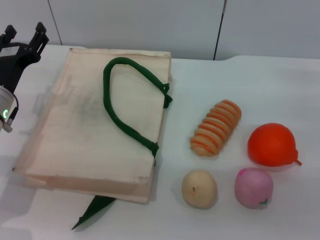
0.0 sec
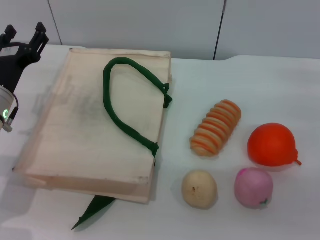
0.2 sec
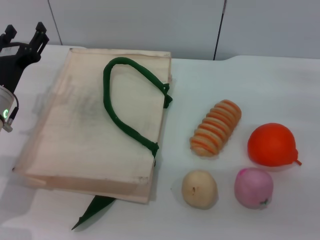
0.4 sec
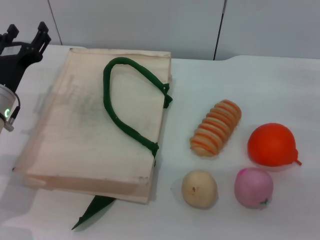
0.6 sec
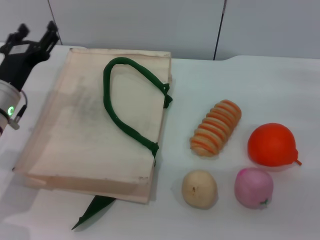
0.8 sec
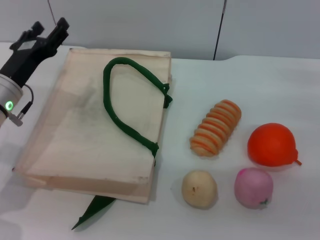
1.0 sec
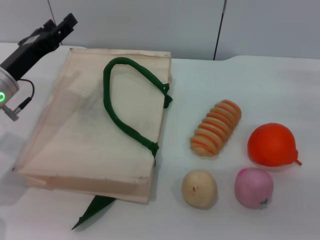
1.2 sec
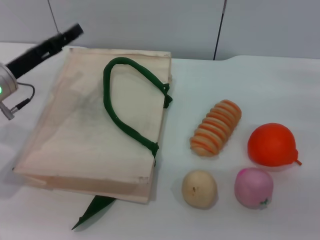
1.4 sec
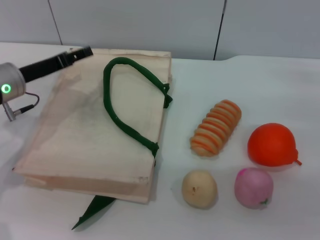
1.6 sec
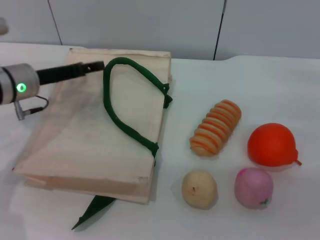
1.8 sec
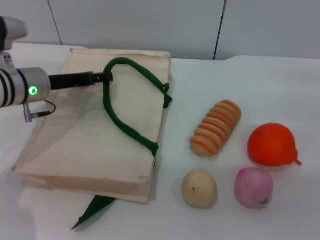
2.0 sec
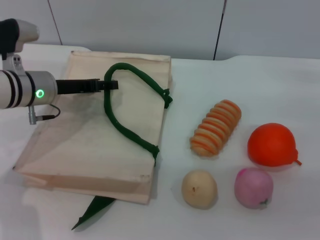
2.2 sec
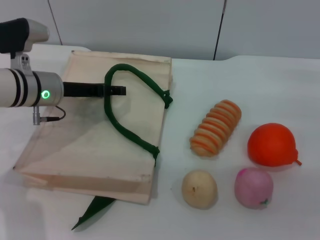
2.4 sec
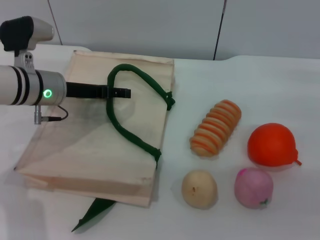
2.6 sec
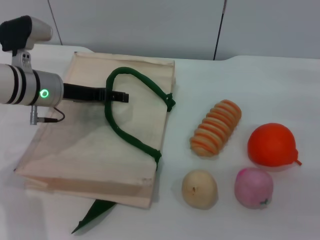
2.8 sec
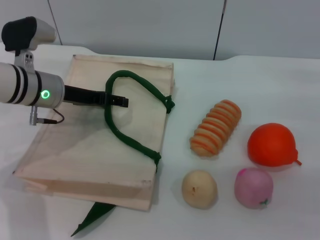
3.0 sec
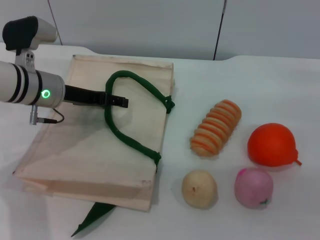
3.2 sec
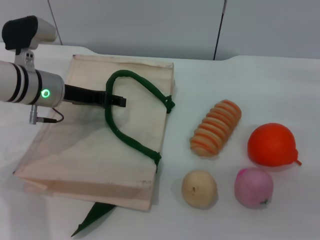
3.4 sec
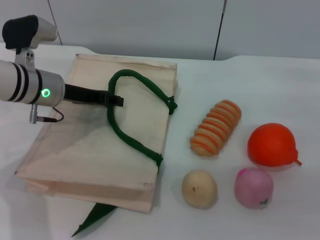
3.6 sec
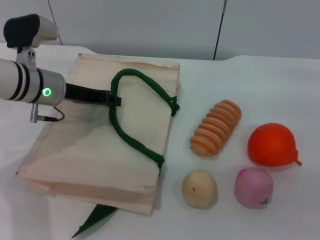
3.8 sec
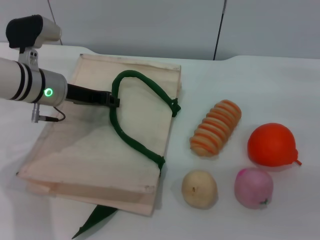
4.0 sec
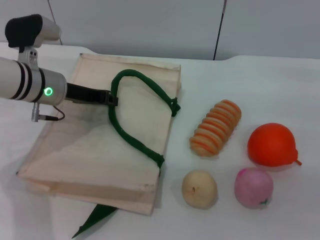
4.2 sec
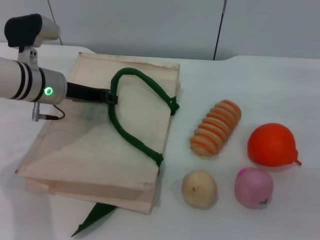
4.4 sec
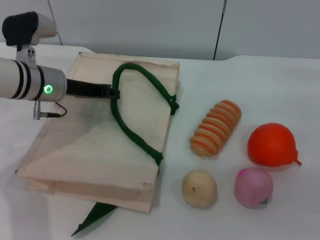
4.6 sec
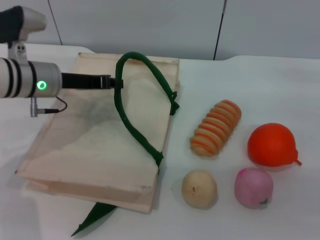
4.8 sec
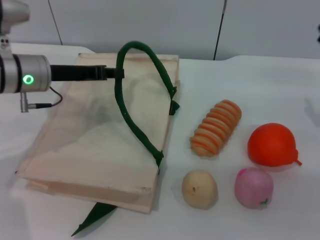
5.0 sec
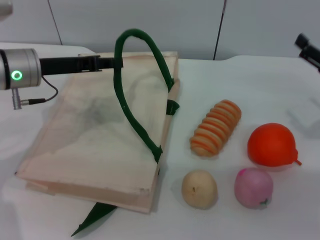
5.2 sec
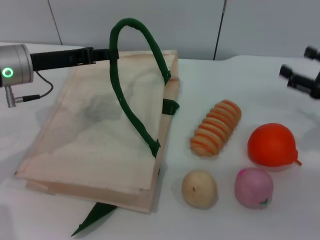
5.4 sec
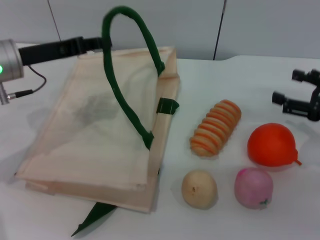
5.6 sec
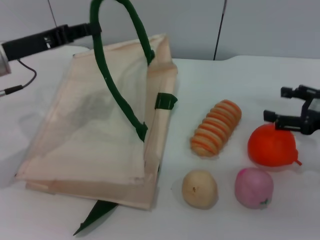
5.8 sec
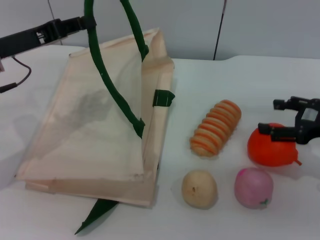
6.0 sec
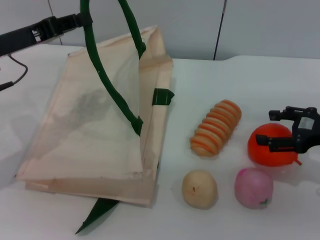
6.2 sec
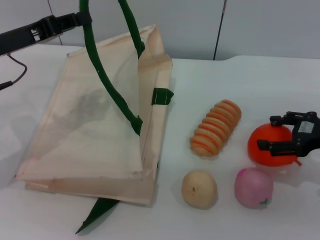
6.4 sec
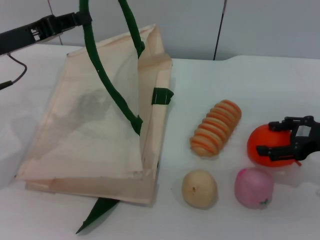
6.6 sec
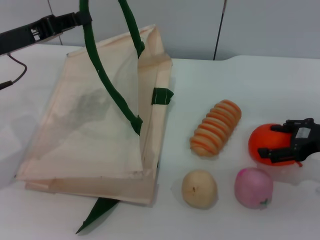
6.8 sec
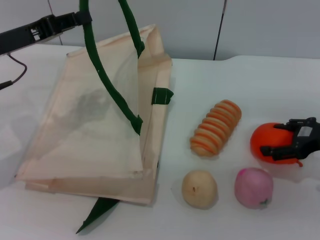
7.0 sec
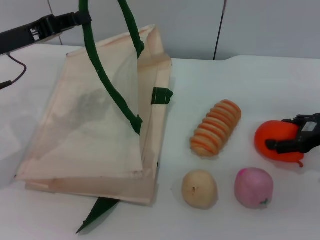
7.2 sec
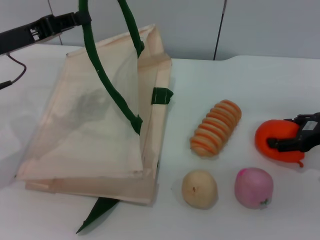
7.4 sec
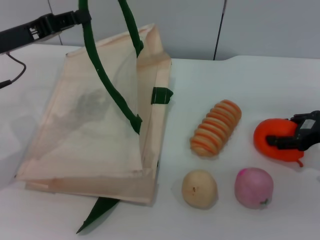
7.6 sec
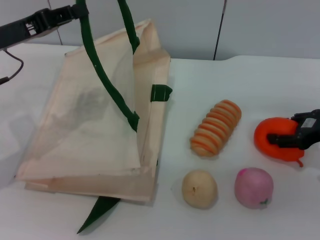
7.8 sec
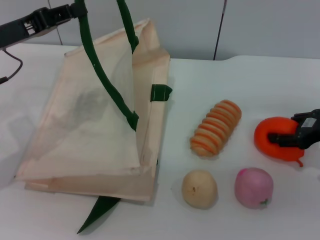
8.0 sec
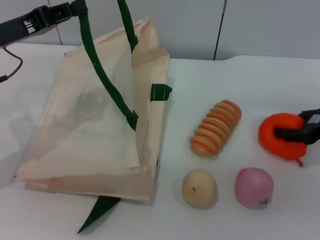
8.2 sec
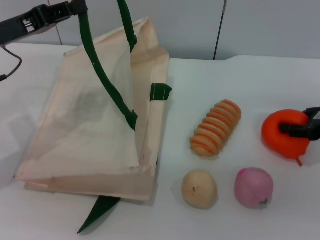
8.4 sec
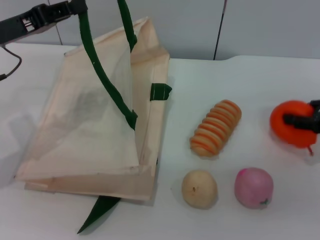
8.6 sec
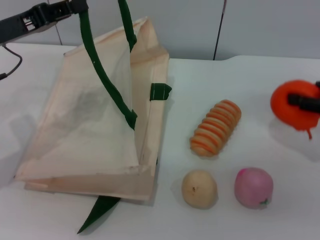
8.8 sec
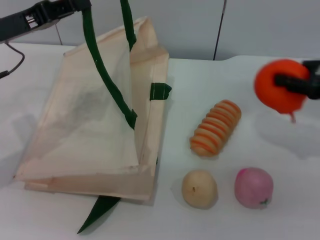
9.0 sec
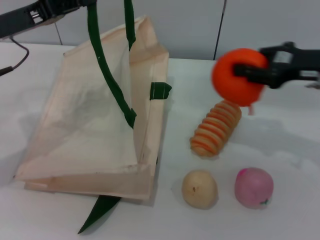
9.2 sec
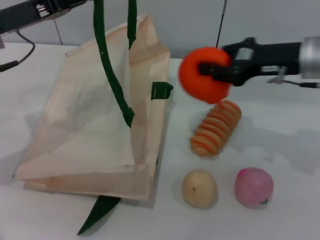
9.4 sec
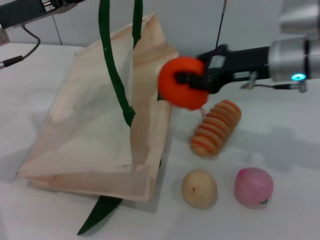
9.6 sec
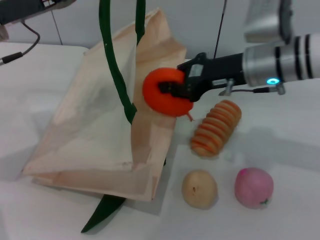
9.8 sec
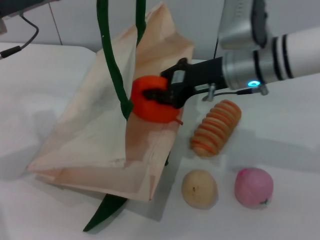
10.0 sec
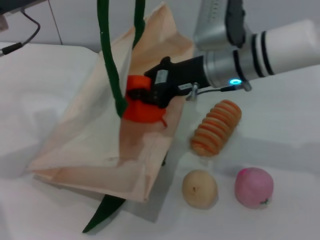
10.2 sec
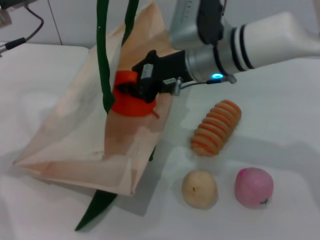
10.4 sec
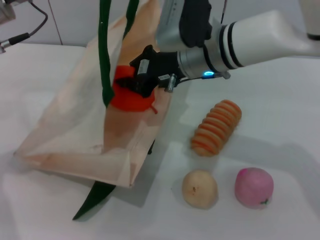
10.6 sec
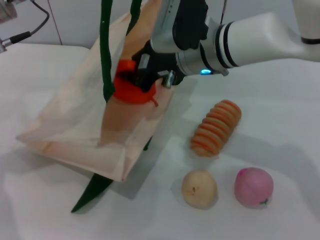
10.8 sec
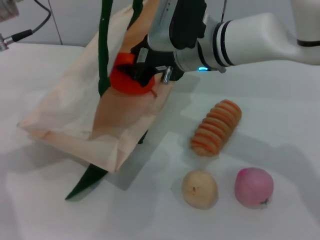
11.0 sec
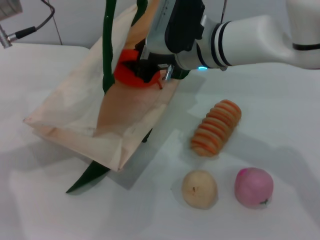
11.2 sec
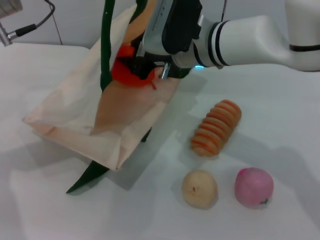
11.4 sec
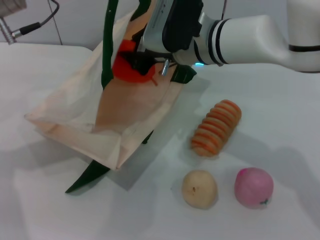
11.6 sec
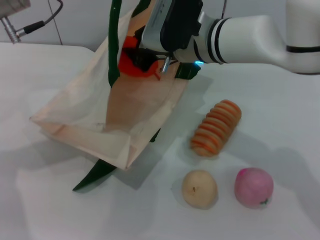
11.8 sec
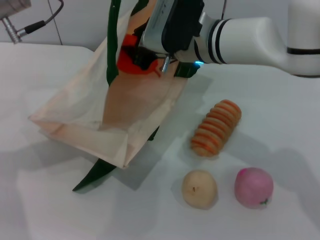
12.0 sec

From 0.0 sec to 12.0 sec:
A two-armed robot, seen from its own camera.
Task of the whole recording: pick up the orange and peach from the table and place it in the white handbag.
Step, from 0.0 sec to 5.2 sec: Lift the woven bag with the left gripper to open it.
Step, from 5.4 sec to 8.8 sec: Pick up the orange with the right gripper.
From 0.0 sec to 1.6 sec: The left gripper shifts by some 5 cm.
From 1.6 sec to 3.0 sec: The left gripper changes place by roughly 5 cm.
From 3.0 sec to 4.4 sec: The left gripper closes up.
From 4.4 sec to 6.0 sec: The left gripper heads to the left and upward, covering about 10 cm.
From 6.0 sec to 7.6 sec: There are only small adjustments of the grippers.
From 7.6 sec to 9.0 sec: The right gripper moves upward, about 5 cm, and closes.
From 9.0 sec to 10.4 sec: The left gripper changes place by approximately 5 cm, while the right gripper heads to the left, covering approximately 25 cm.

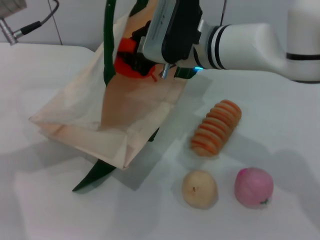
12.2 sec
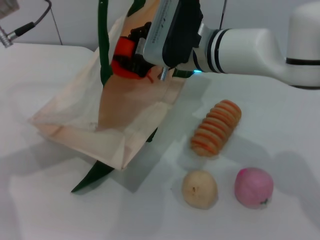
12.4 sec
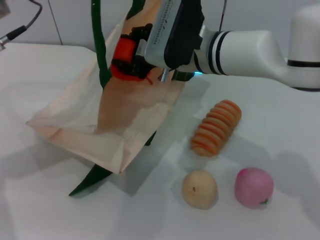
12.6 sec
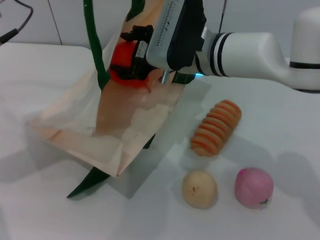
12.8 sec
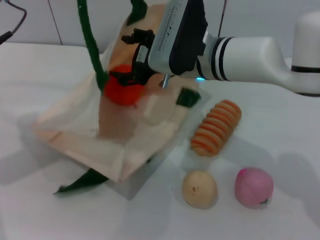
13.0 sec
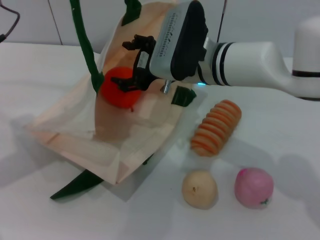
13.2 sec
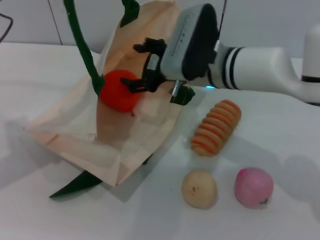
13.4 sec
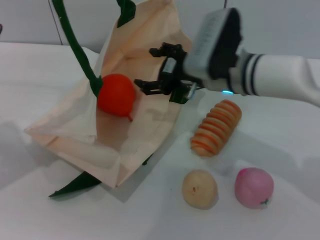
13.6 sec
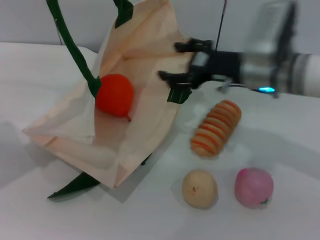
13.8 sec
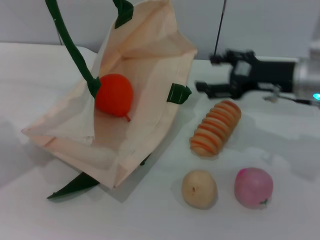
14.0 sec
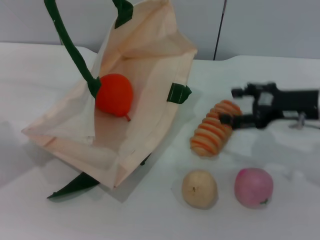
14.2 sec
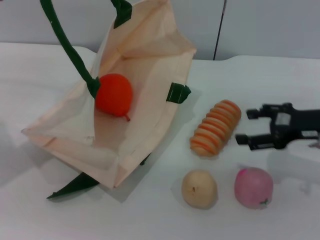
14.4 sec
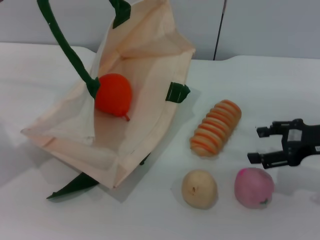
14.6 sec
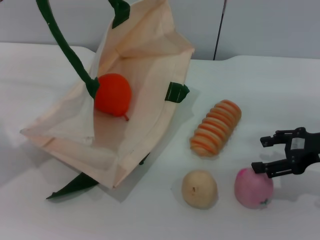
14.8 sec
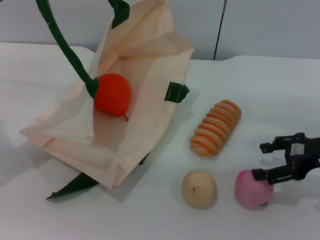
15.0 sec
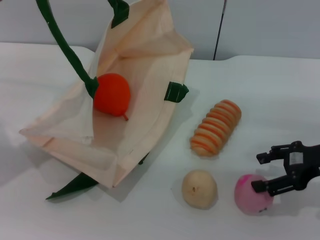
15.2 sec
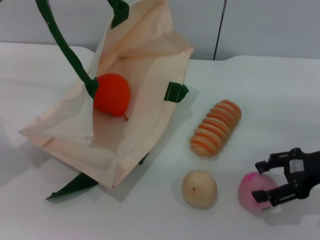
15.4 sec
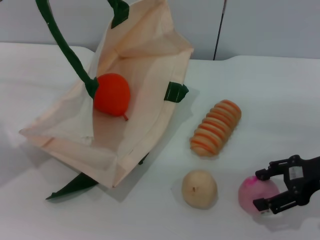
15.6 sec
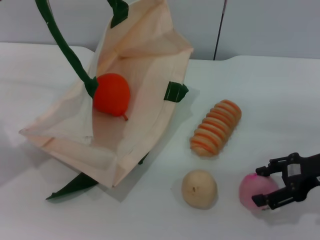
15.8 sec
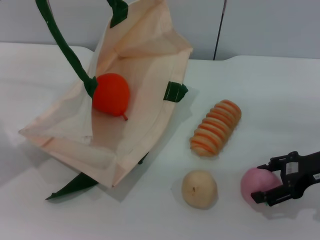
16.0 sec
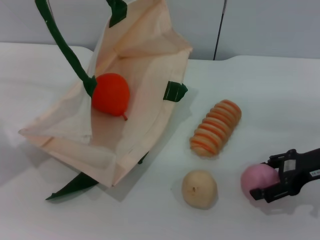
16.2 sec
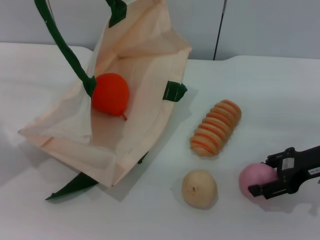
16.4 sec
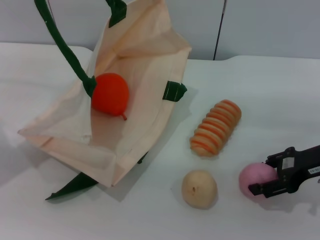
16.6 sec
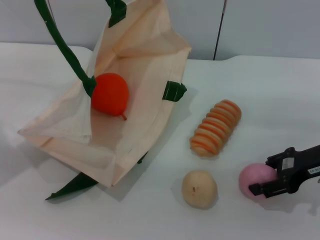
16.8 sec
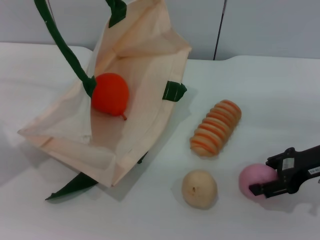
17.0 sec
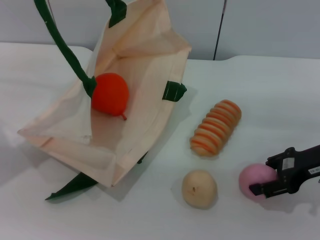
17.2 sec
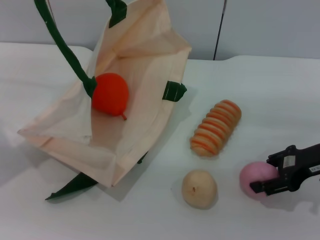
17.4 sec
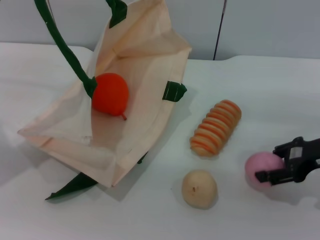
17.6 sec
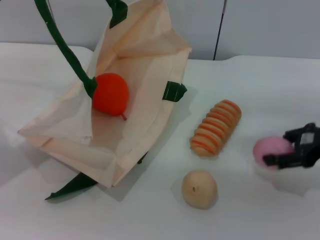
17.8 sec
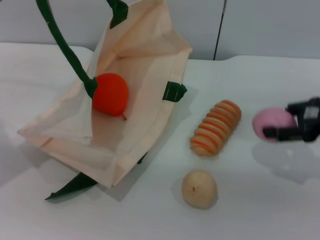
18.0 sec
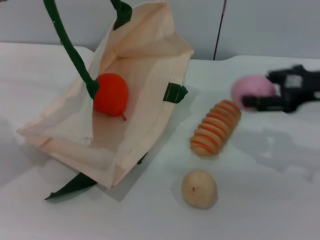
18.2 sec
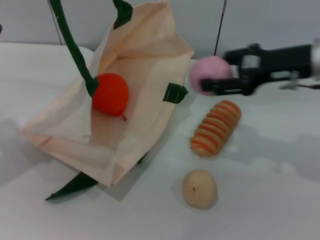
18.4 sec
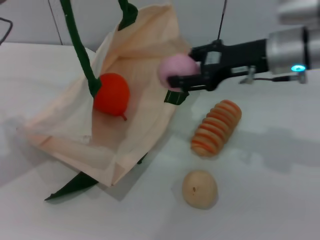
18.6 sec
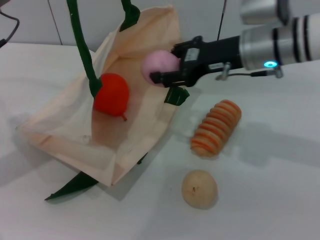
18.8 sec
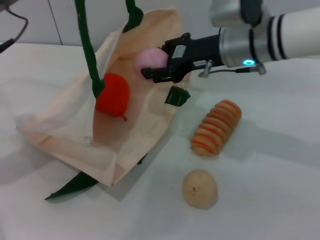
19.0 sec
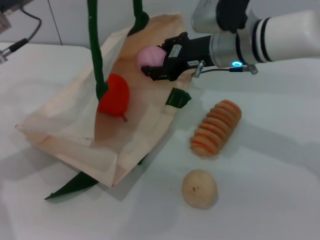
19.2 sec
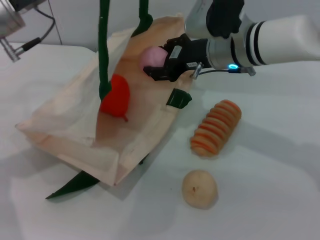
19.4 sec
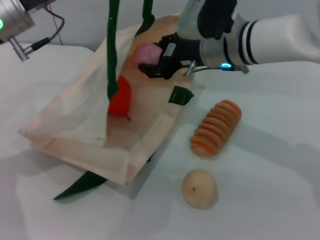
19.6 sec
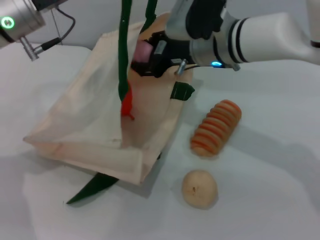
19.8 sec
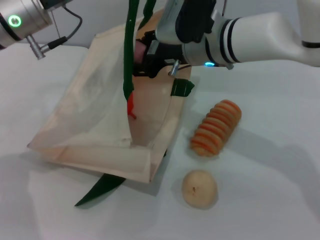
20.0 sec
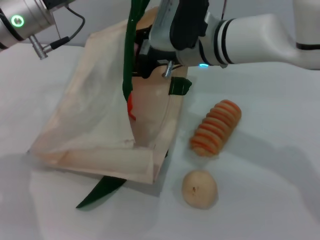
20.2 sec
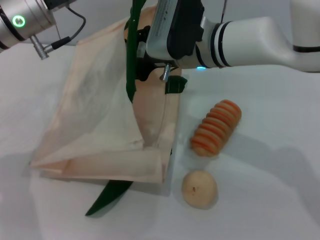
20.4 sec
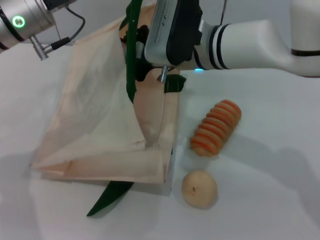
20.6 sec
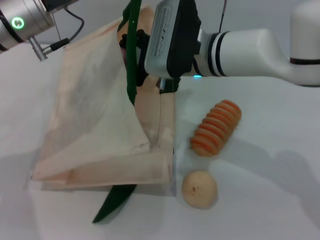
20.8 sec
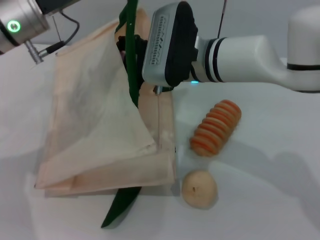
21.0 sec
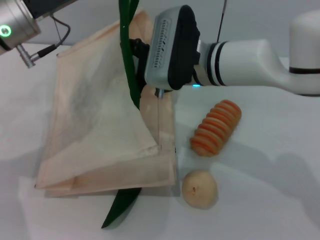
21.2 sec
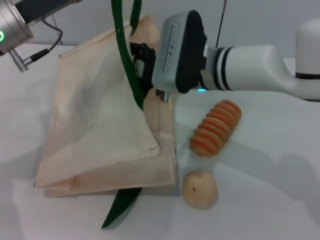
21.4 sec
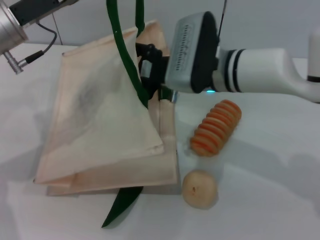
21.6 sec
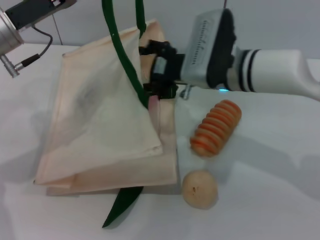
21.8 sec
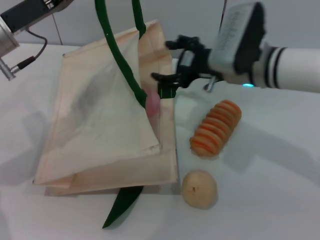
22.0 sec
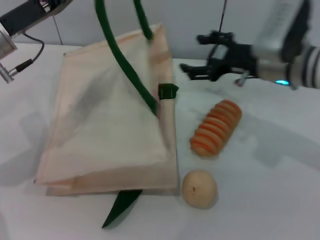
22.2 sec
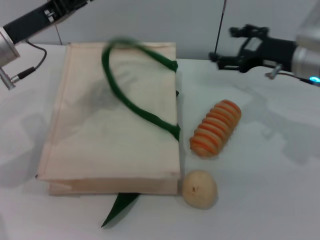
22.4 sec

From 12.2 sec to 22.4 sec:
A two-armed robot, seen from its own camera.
Task of the whole recording: pick up the orange and peach from the table and place it in the white handbag.
Step, from 13.6 sec to 17.6 sec: Pick up the peach with the right gripper.
Step, from 17.8 sec to 21.8 sec: Place the peach into the woven bag with the right gripper.
From 12.2 sec to 13.6 sec: The right gripper shifts about 5 cm to the right, and opens, while the left gripper shifts about 5 cm to the left.
From 13.6 sec to 15.2 sec: The right gripper moves to the right and backward, about 20 cm.
From 15.2 sec to 16.6 sec: The grippers move only a little.
From 16.6 sec to 18.0 sec: The right gripper goes roughly 5 cm upward.
From 18.0 sec to 19.4 sec: The left gripper moves to the right, about 5 cm. The right gripper heads to the left, covering about 20 cm.
From 19.4 sec to 21.0 sec: The right gripper is displaced to the left by approximately 5 cm.
From 21.0 sec to 22.4 sec: The right gripper heads to the right, covering about 20 cm, while the left gripper shifts by some 5 cm.
